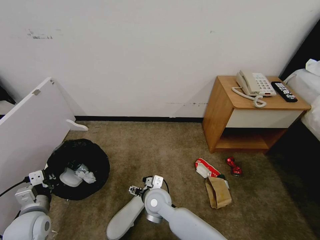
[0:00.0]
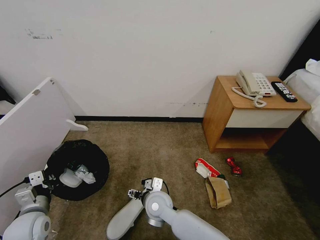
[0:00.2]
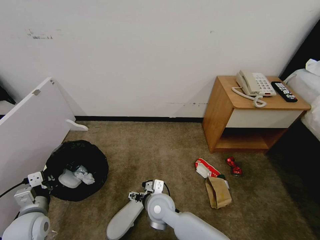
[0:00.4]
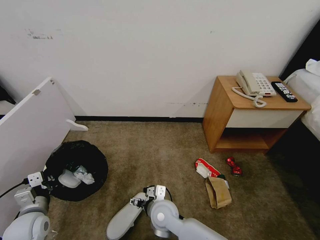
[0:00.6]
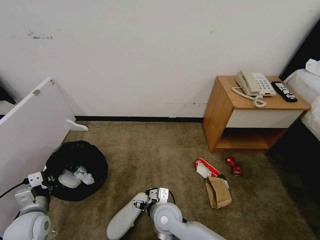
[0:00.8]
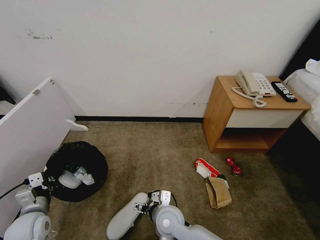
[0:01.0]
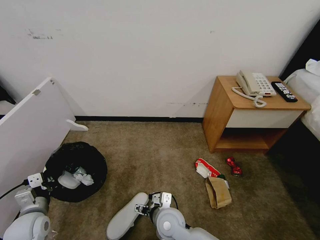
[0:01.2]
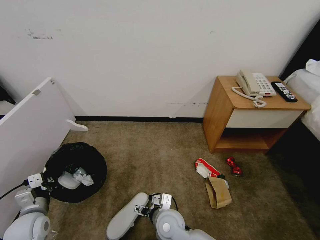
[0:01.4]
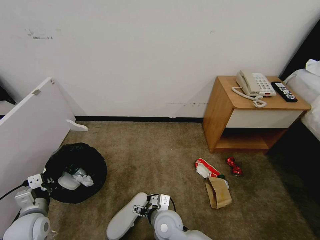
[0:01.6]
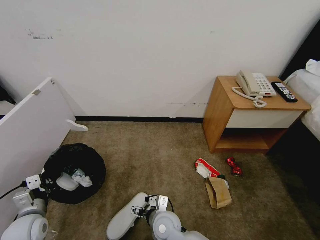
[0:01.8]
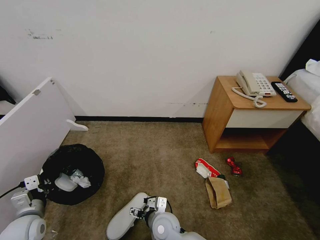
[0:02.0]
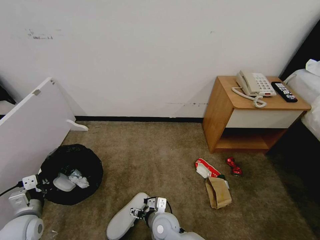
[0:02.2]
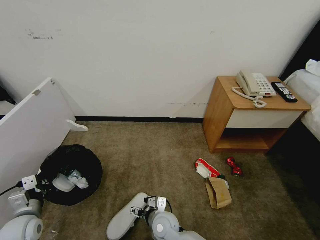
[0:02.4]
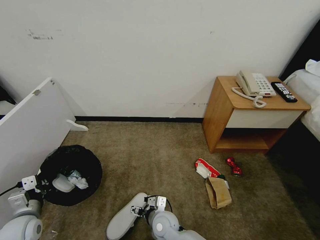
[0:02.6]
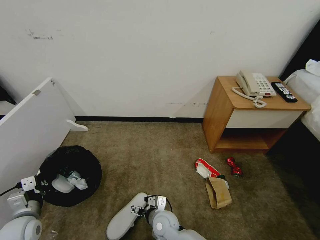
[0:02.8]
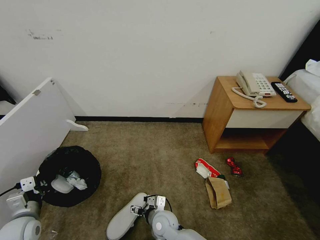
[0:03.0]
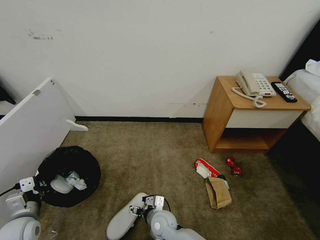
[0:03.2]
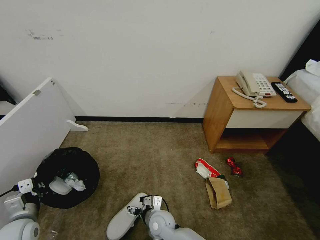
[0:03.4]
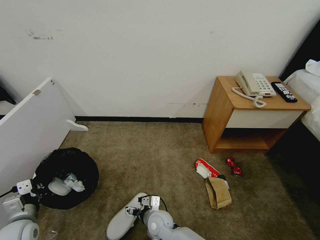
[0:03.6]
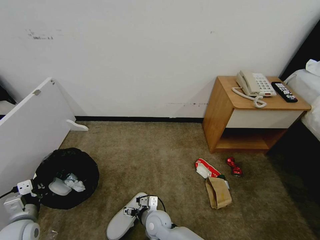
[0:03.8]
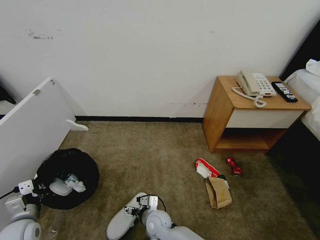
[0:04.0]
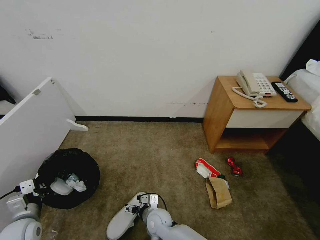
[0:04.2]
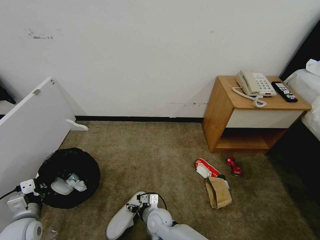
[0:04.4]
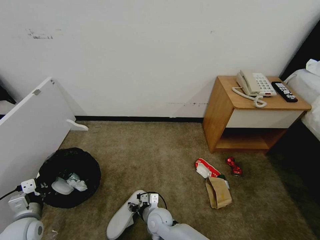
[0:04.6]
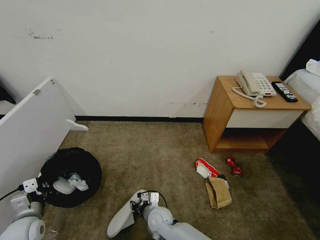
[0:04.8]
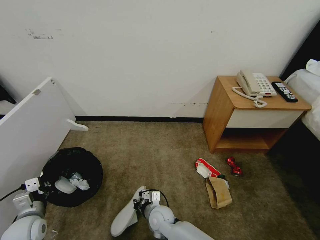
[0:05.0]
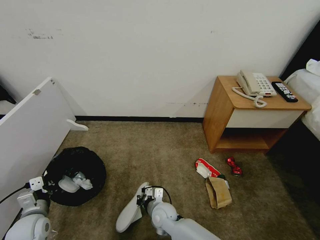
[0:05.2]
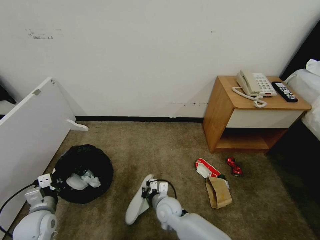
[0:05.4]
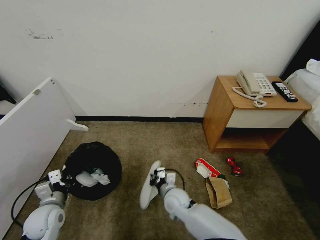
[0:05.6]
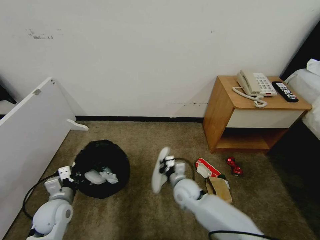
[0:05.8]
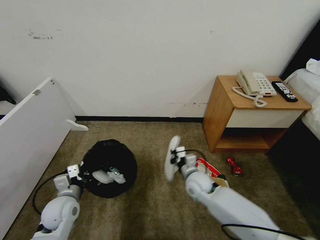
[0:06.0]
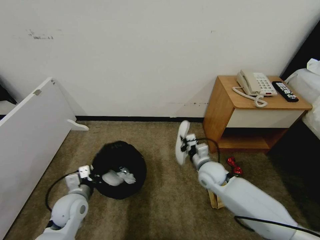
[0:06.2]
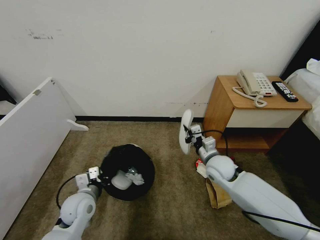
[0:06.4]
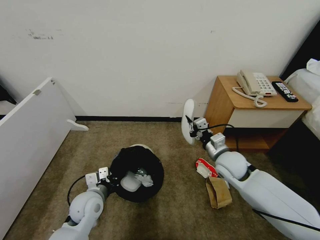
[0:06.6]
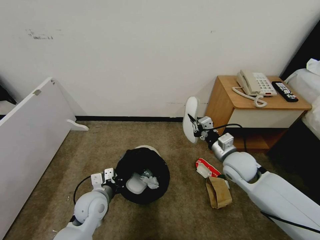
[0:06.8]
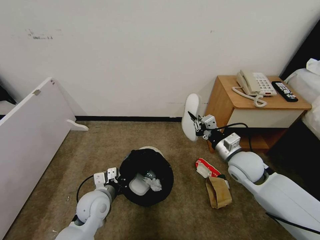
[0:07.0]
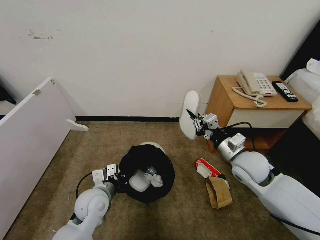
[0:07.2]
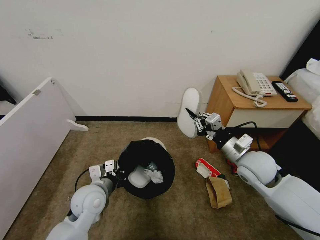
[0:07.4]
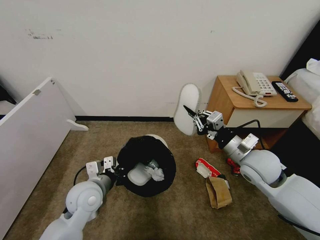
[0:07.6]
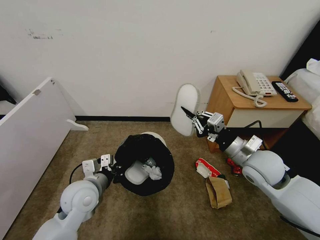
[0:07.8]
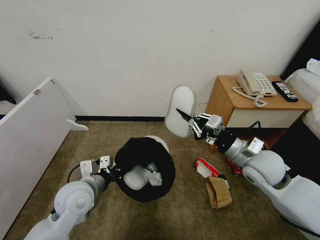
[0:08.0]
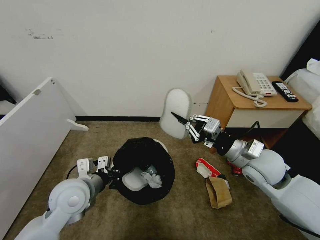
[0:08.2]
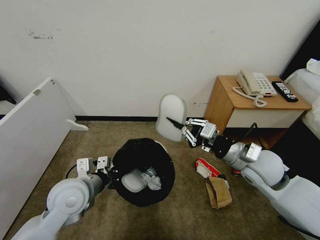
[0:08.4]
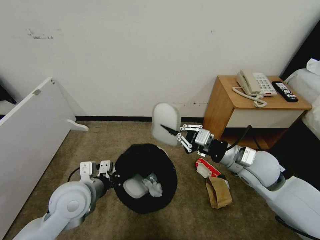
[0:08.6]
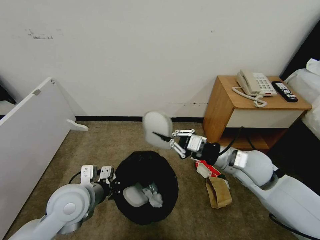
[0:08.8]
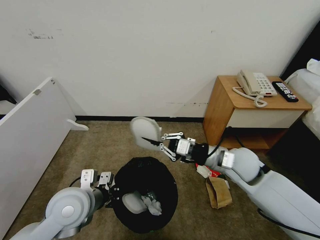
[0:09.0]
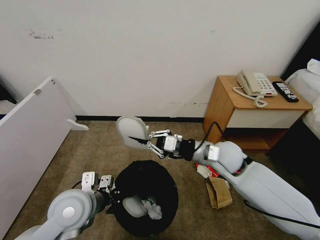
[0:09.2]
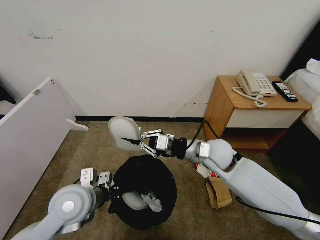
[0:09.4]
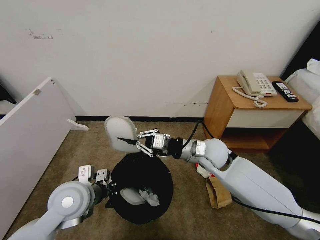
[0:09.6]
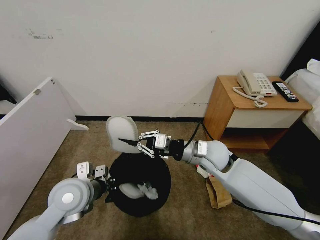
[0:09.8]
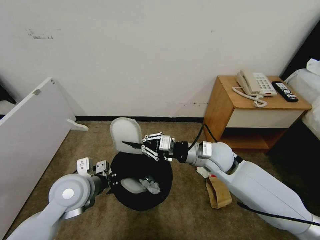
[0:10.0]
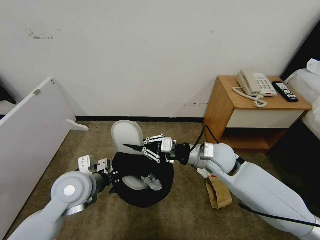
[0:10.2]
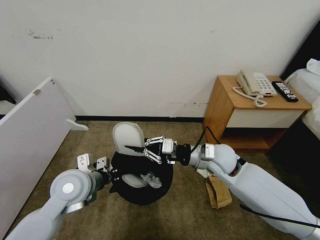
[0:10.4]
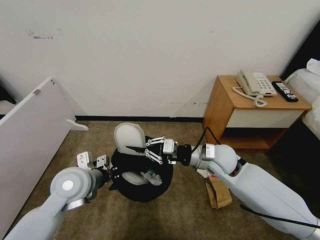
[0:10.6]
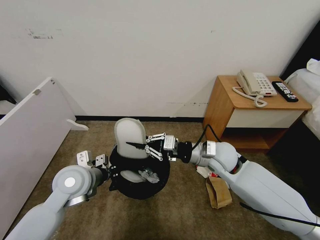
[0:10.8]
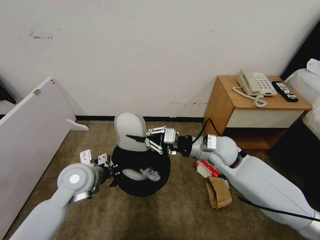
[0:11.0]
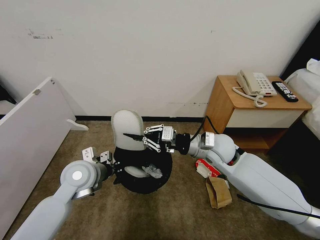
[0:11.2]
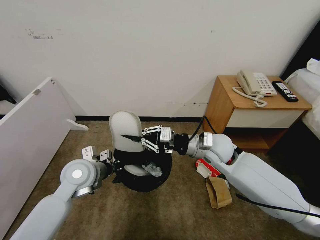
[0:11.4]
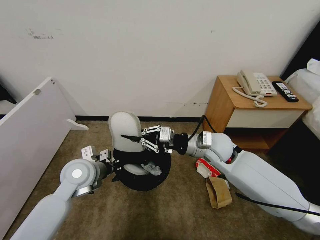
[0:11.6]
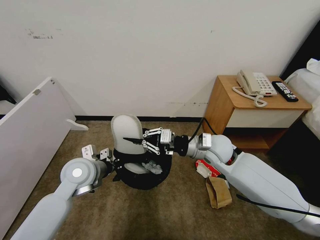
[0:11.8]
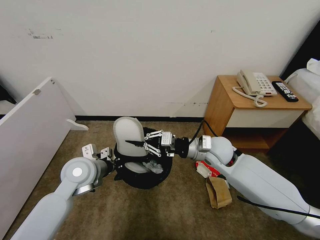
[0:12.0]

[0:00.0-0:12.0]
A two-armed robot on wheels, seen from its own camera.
Task of the whole recording: Pick up the trash bin, then pick up the garbage from the floor and place it into the trash bin.
0:00.0 to 0:01.6: The right gripper travels backward by roughly 5 cm.
0:01.6 to 0:03.0: The right gripper moves downward, some 5 cm.
0:03.0 to 0:04.4: The grippers stay close to where they were, moving slightly.
0:04.4 to 0:06.0: The right gripper goes approximately 20 cm to the right, upward and forward, and closes; the left gripper travels to the right and forward by about 10 cm.
0:06.0 to 0:07.6: The right gripper goes about 25 cm upward and to the right; the left gripper shifts about 10 cm to the right and upward.
0:07.6 to 0:09.0: The left gripper travels upward by some 5 cm.
0:09.0 to 0:10.4: The right gripper moves to the left, some 5 cm.
0:10.4 to 0:12.0: The left gripper moves approximately 5 cm.

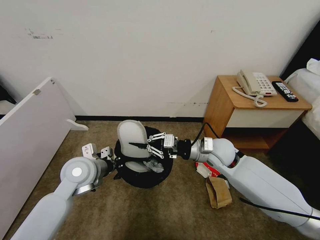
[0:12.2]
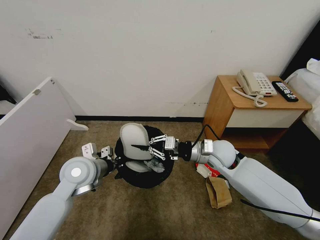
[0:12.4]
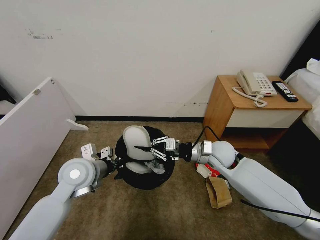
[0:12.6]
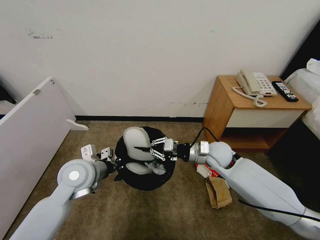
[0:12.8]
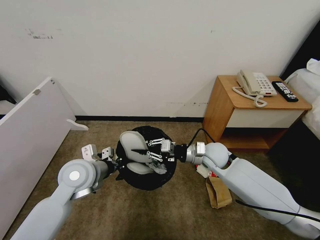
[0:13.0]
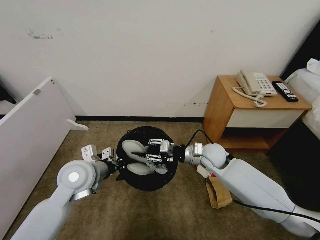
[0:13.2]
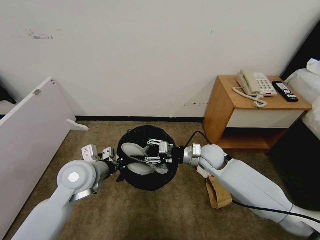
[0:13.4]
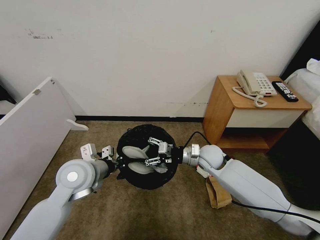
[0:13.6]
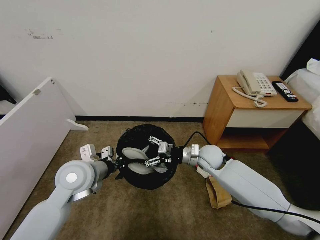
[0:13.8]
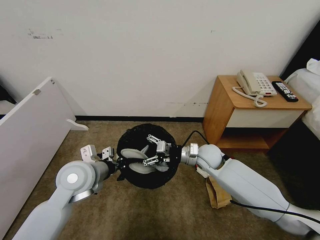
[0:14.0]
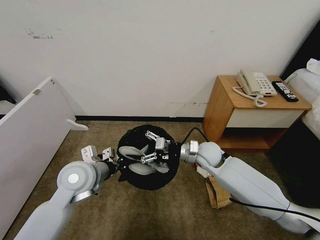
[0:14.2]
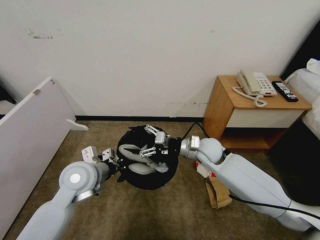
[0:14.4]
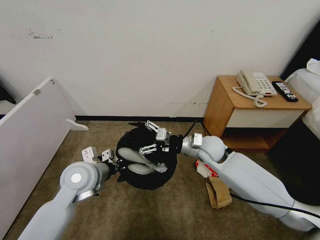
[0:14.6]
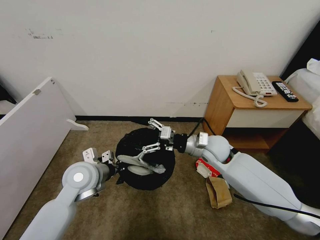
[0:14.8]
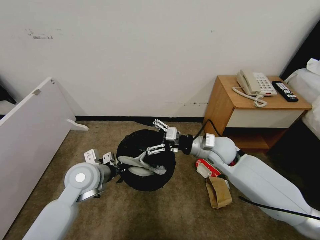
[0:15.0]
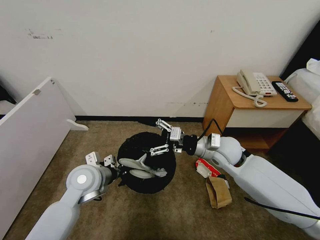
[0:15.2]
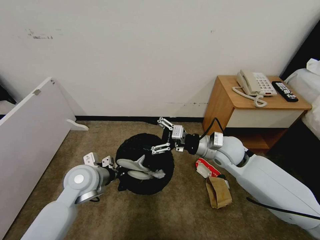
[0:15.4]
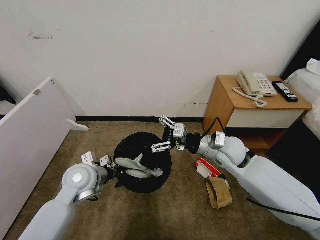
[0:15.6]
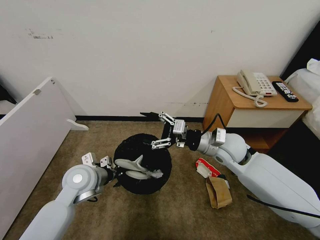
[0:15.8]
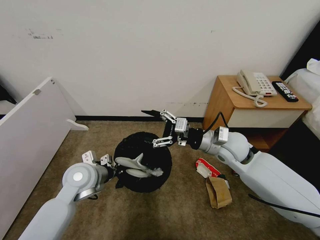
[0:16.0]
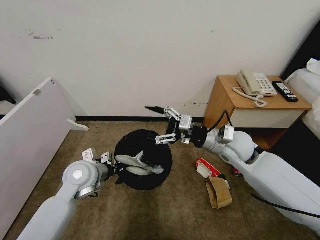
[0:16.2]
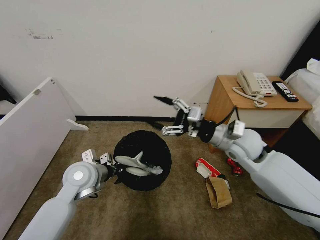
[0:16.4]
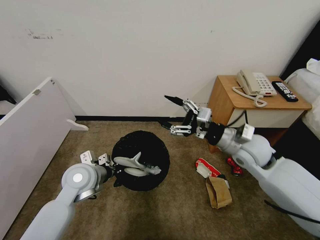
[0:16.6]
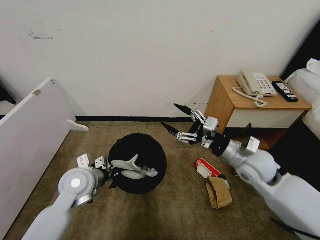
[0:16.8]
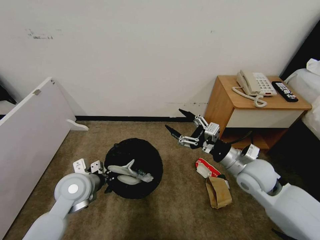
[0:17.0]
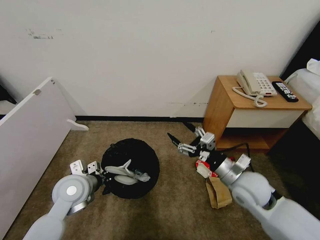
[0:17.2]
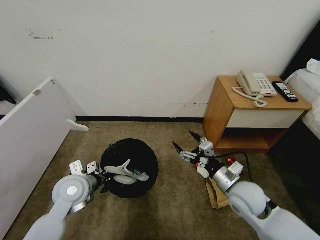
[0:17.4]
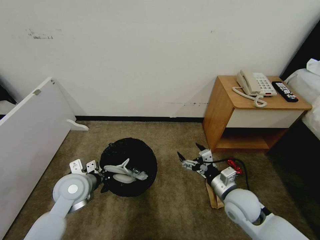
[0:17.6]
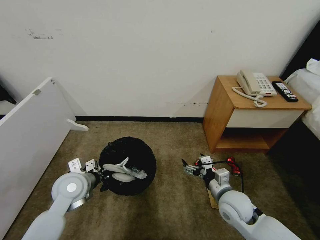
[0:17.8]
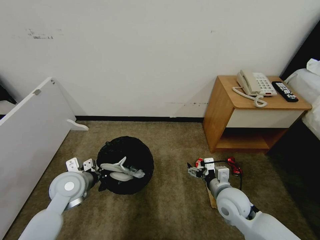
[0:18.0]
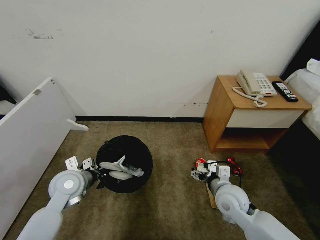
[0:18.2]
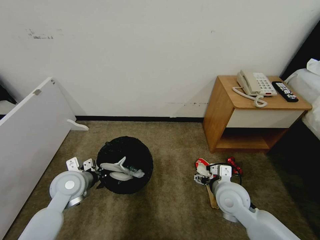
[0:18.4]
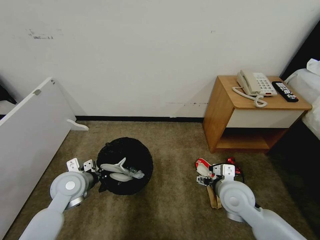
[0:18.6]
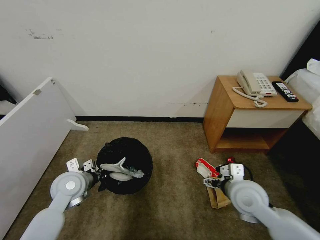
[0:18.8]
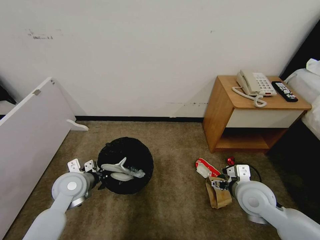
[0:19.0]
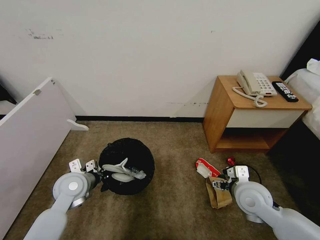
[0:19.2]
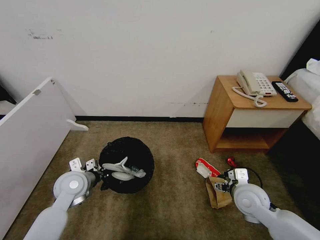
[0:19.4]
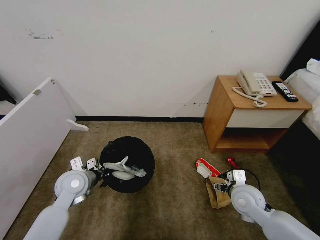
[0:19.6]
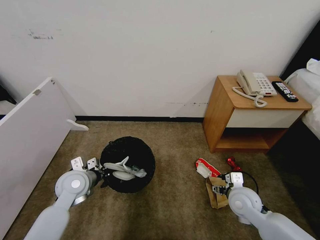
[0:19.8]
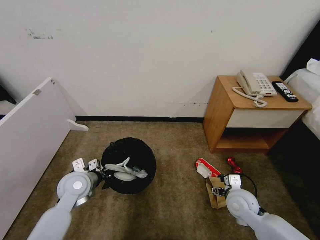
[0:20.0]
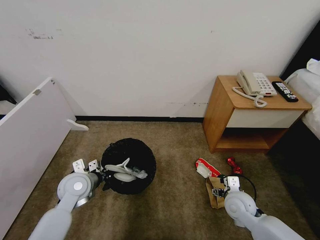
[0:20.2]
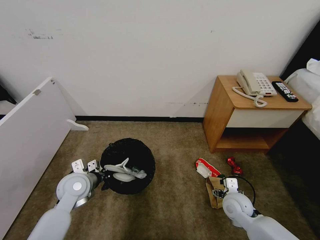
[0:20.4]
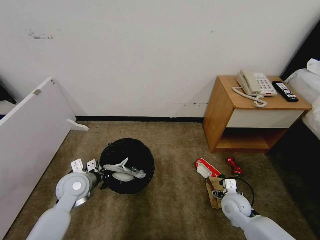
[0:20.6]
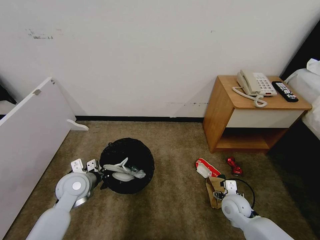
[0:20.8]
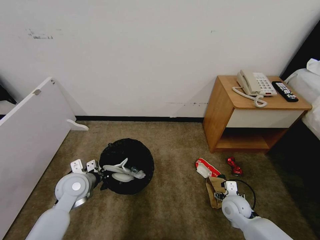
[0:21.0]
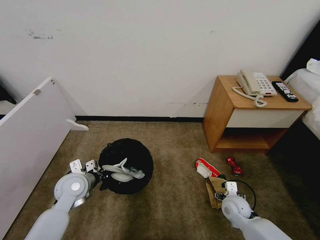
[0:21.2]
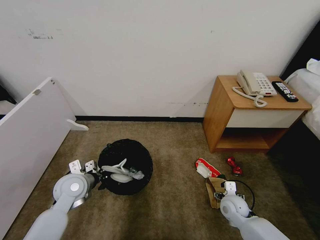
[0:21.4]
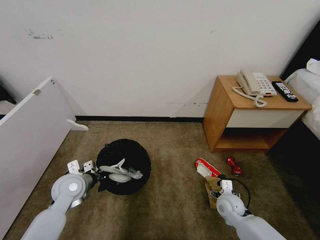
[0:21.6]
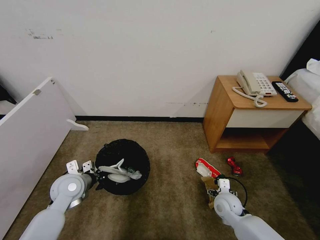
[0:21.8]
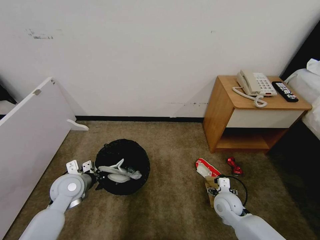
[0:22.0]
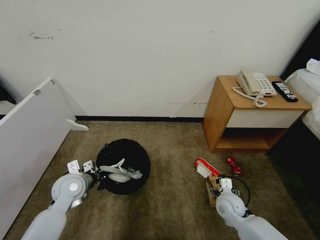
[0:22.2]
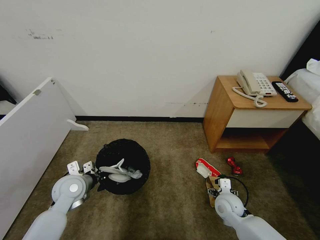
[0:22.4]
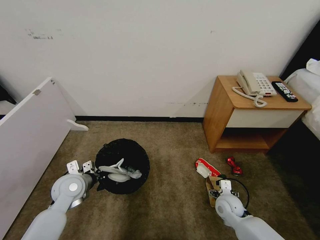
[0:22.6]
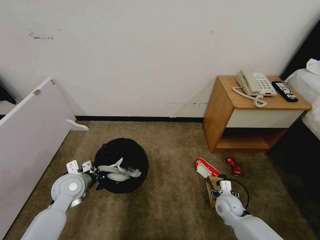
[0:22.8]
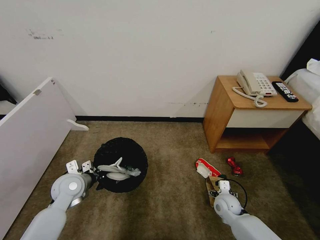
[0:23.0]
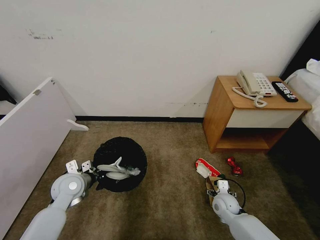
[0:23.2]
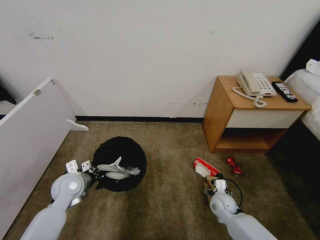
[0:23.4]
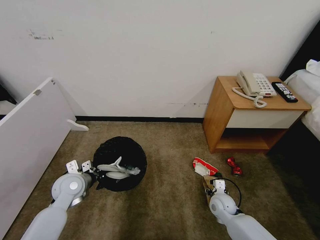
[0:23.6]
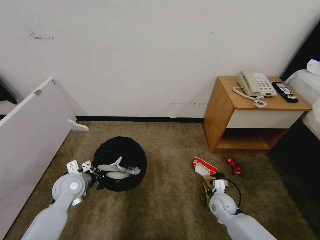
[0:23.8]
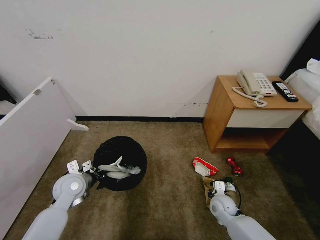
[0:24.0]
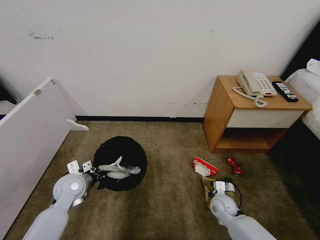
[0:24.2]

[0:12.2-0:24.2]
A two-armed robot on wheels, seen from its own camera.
Task of the whole recording: Pick up the trash bin, then pick up the garbage from the floor and place it into the trash bin.
0:12.2 to 0:13.8: The right gripper moves downward, some 5 cm, and opens up.
0:13.8 to 0:15.2: The right gripper moves upward, about 10 cm.
0:15.2 to 0:16.6: The right gripper travels to the right by some 5 cm.
0:16.6 to 0:18.2: The right gripper travels downward and backward by about 15 cm.
0:18.2 to 0:19.8: The right gripper moves to the right, about 5 cm.
0:19.8 to 0:21.2: The right gripper travels downward by about 10 cm.
0:21.2 to 0:22.6: The grippers make only small movements.
0:22.6 to 0:24.2: The right gripper closes its fingers.
